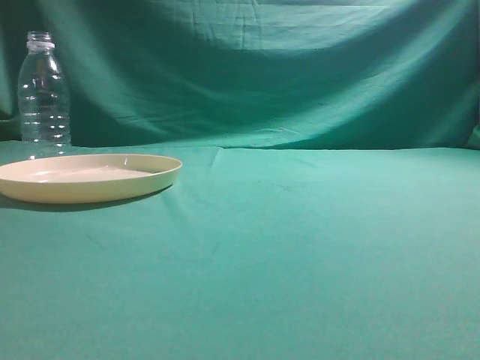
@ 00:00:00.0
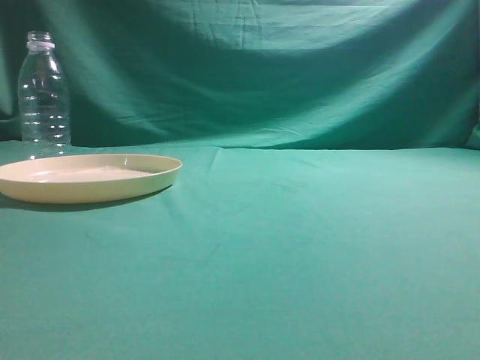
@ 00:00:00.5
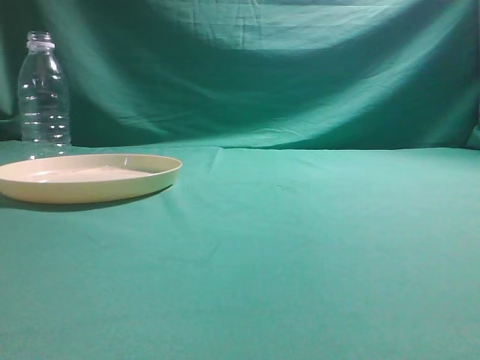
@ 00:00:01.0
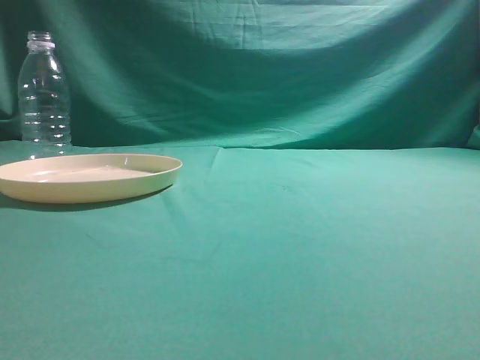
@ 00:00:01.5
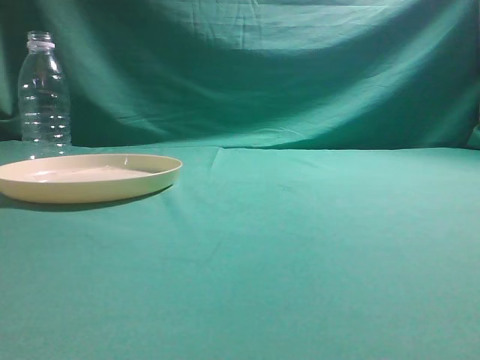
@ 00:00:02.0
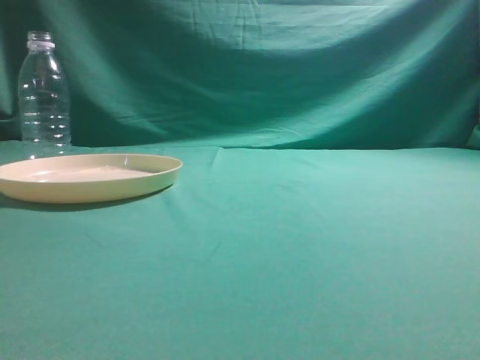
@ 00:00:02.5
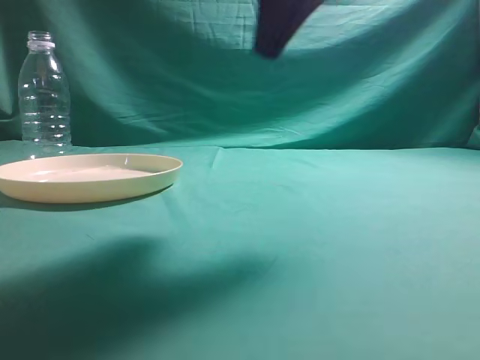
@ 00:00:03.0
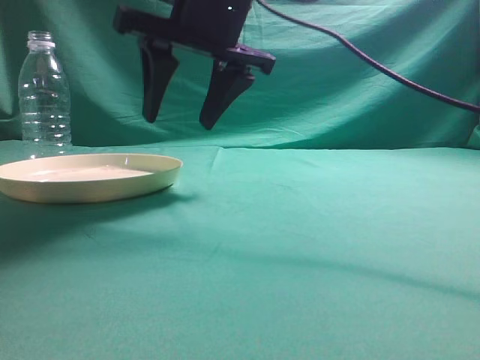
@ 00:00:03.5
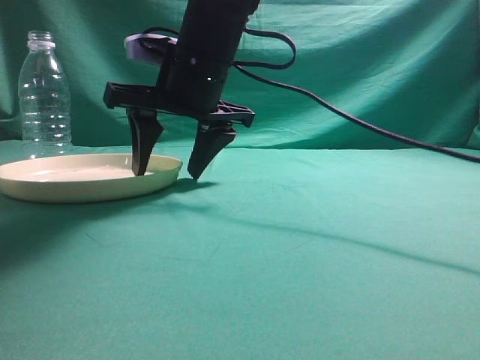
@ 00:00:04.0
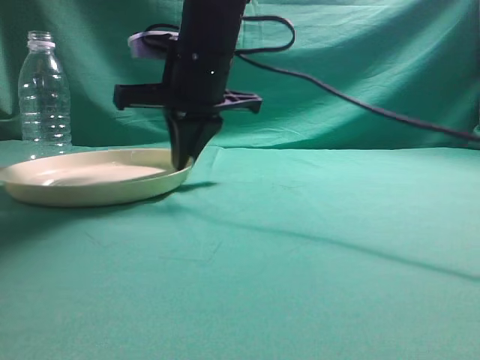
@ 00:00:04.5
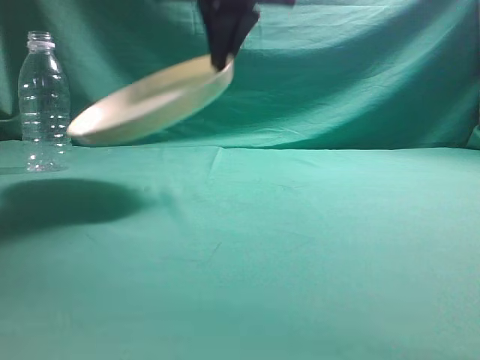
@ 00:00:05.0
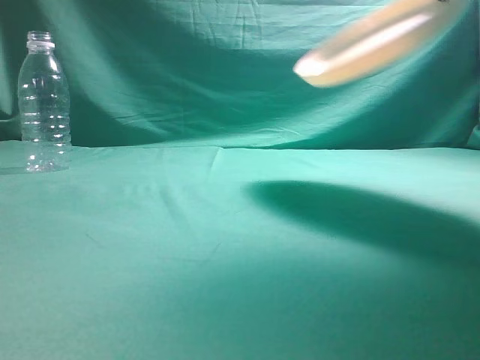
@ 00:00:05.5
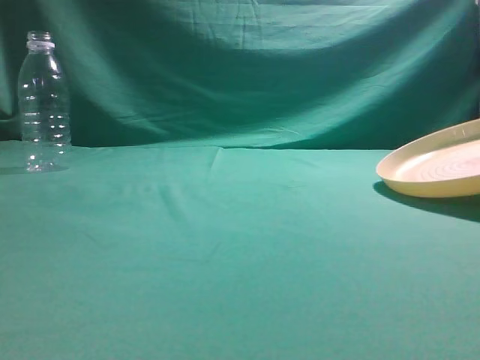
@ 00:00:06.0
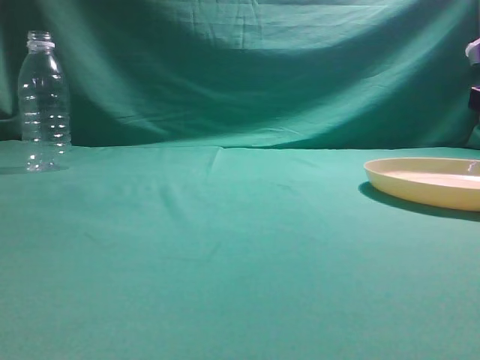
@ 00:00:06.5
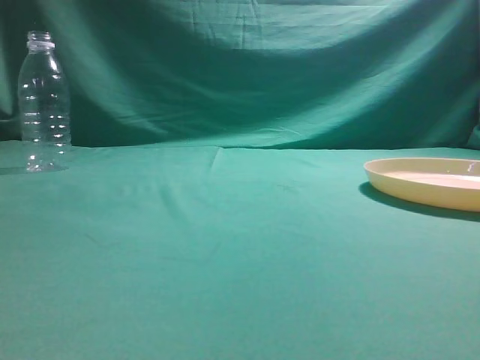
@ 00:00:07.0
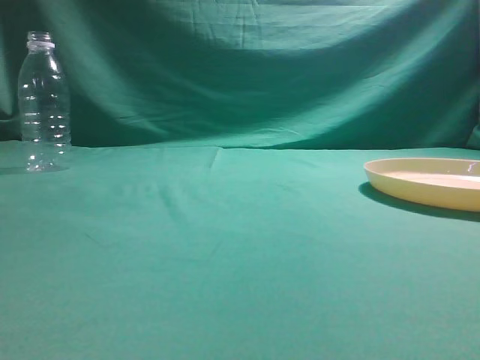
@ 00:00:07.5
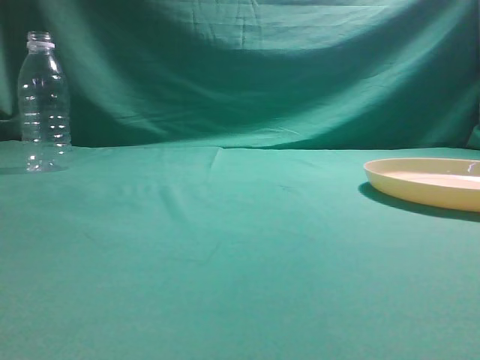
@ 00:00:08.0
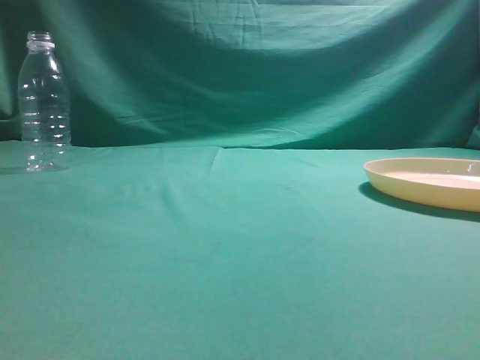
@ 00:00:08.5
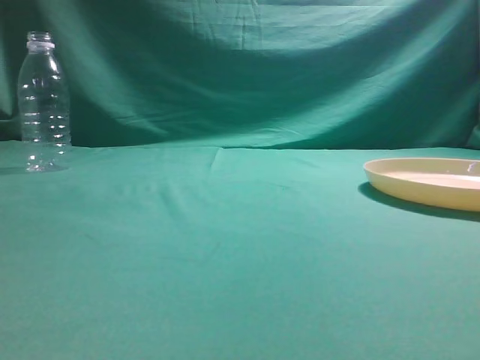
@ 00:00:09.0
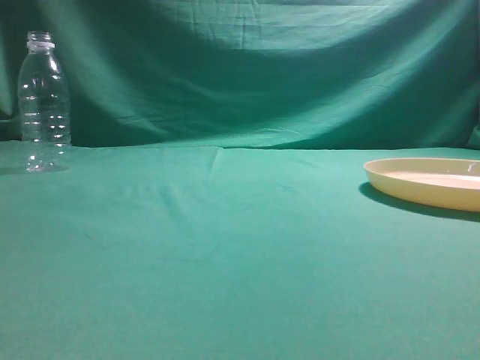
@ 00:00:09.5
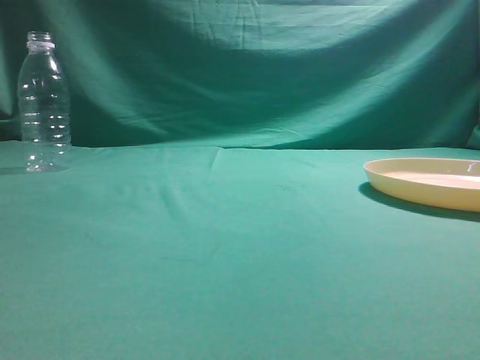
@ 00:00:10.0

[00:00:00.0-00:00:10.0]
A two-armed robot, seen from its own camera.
Step, 00:00:00.0 to 00:00:04.5: Pick the container that can hold fruits.
Step, 00:00:05.0 to 00:00:07.0: Move the picked object to the right side of the table.
00:00:02.0 to 00:00:04.0: The right gripper shifts approximately 40 cm to the left and forward, and opens up.
00:00:04.0 to 00:00:06.0: The right gripper heads to the right, covering about 35 cm, and closes.
00:00:06.0 to 00:00:08.0: The right gripper heads backward and upward, covering some 35 cm, and opens and closes again.
